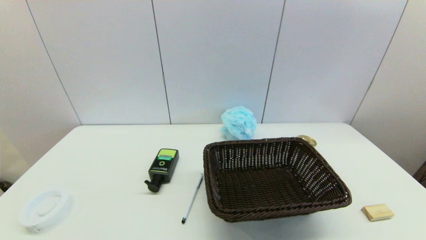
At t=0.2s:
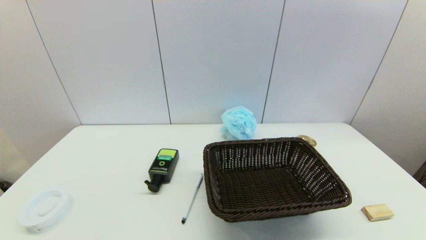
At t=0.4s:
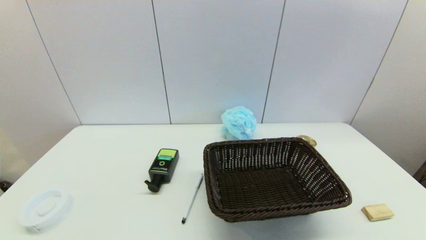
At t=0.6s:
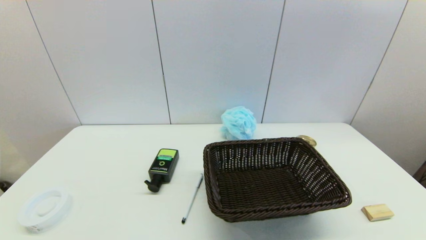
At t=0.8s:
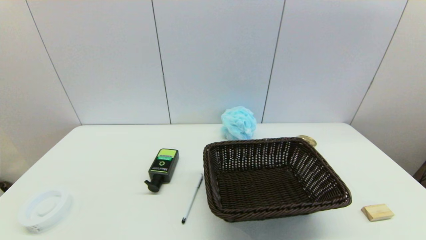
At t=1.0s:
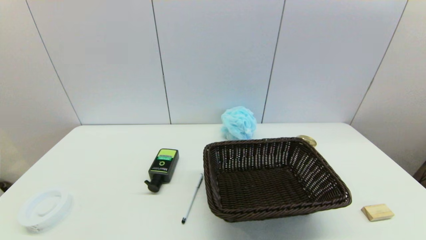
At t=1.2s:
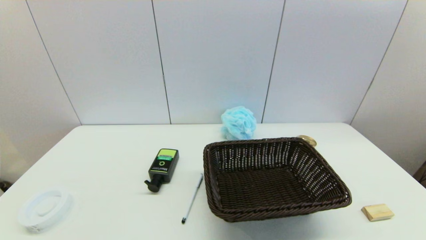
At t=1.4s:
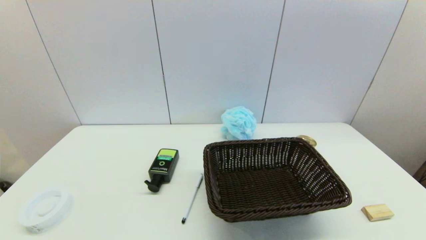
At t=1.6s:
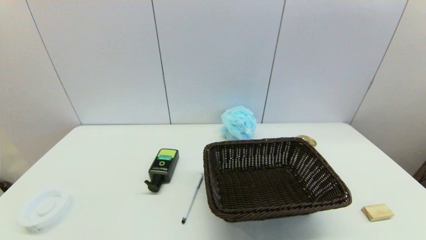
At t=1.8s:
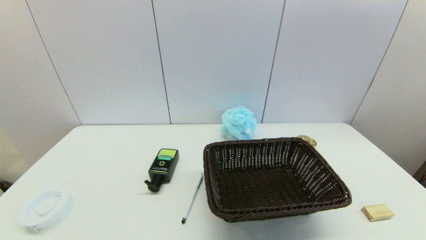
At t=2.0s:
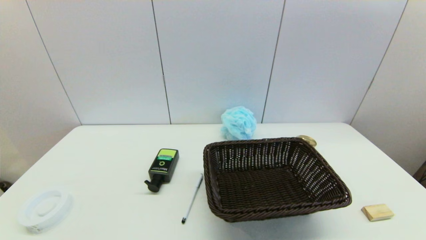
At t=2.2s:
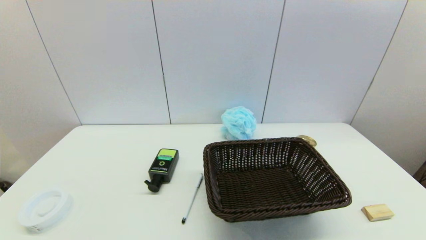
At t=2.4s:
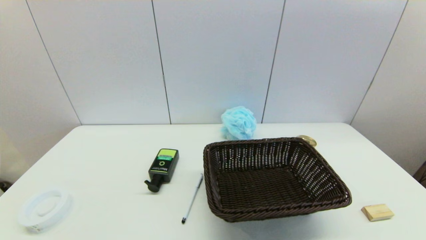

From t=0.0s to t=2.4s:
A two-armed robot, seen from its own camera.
Task of the whole recording: put the pen in the designated position.
From t=1.2s to t=2.4s: Both grippers stay about where they are.
